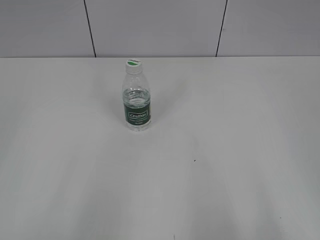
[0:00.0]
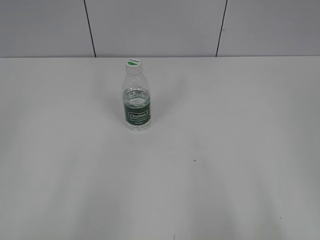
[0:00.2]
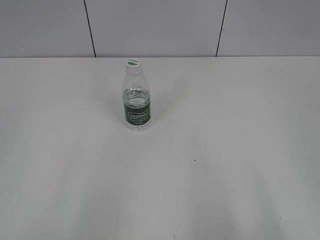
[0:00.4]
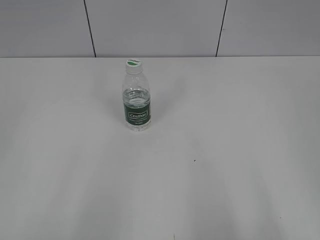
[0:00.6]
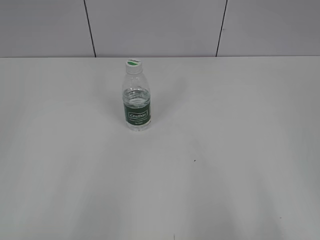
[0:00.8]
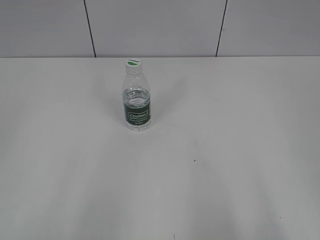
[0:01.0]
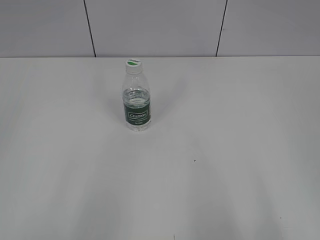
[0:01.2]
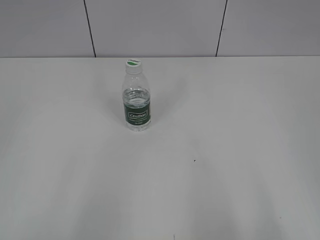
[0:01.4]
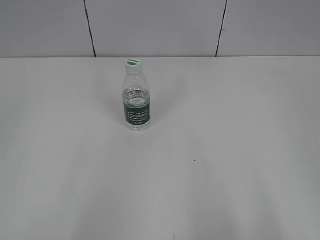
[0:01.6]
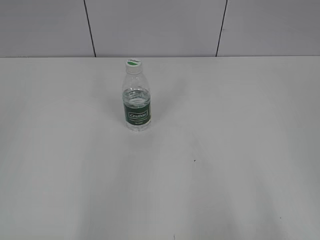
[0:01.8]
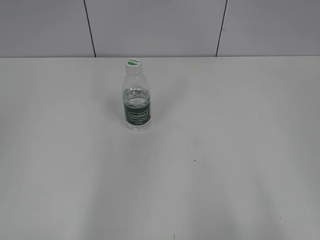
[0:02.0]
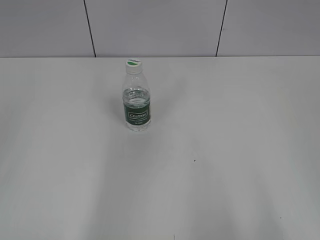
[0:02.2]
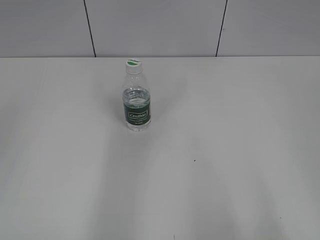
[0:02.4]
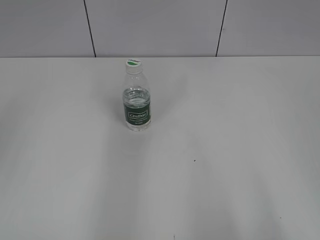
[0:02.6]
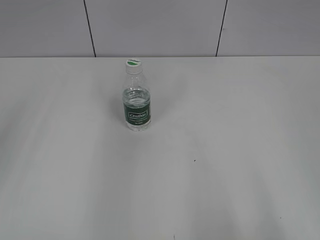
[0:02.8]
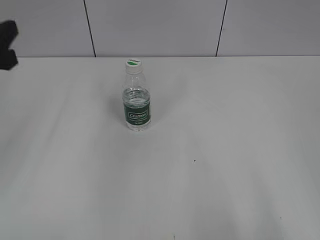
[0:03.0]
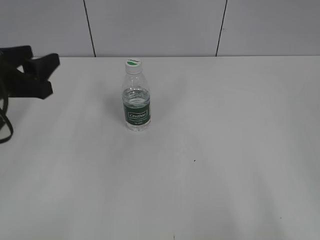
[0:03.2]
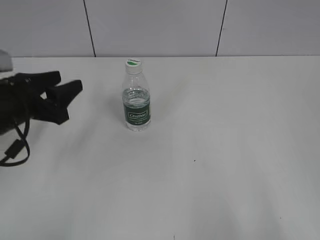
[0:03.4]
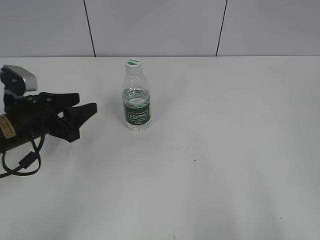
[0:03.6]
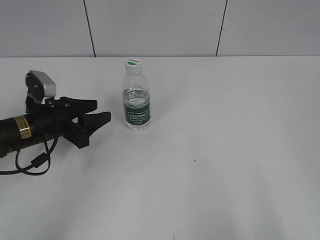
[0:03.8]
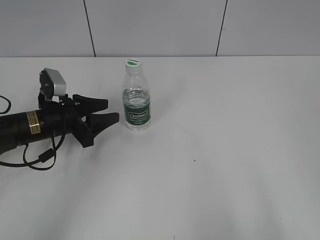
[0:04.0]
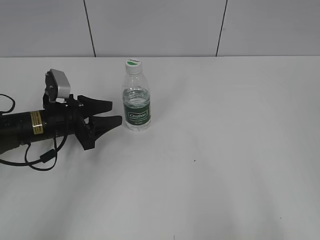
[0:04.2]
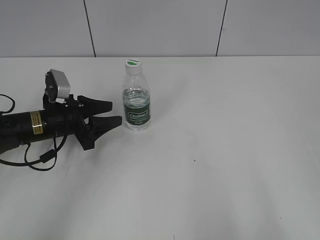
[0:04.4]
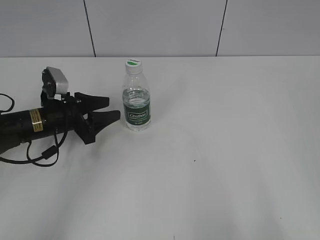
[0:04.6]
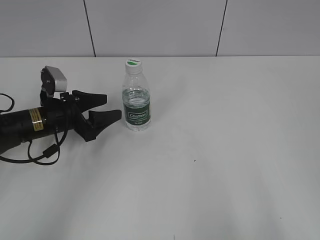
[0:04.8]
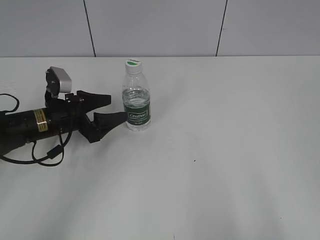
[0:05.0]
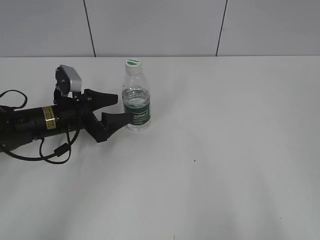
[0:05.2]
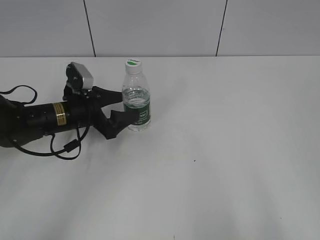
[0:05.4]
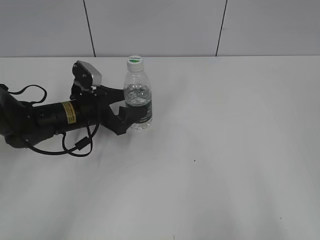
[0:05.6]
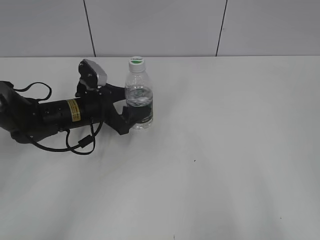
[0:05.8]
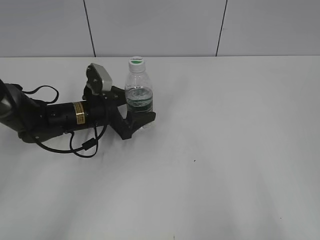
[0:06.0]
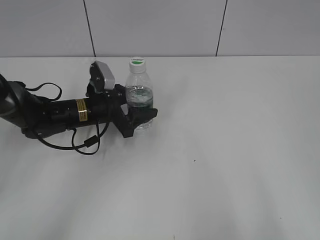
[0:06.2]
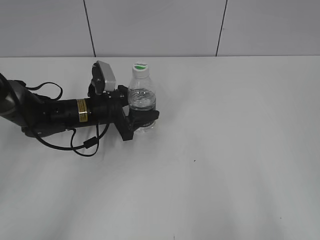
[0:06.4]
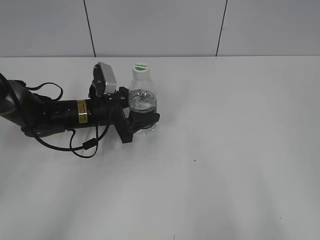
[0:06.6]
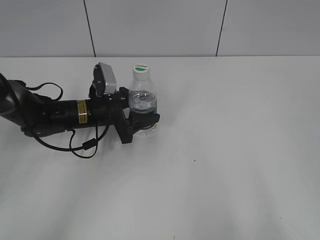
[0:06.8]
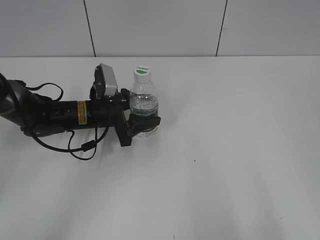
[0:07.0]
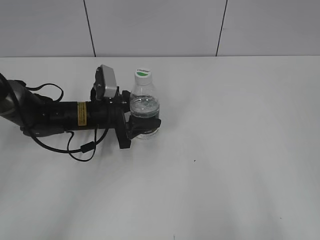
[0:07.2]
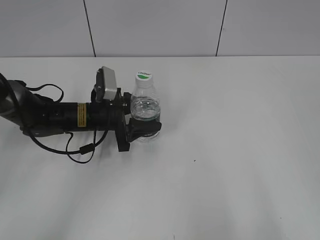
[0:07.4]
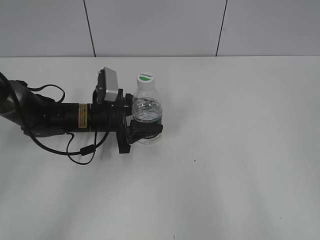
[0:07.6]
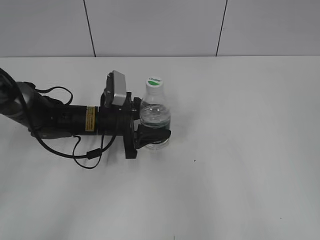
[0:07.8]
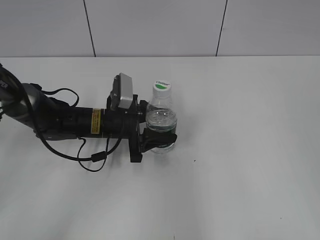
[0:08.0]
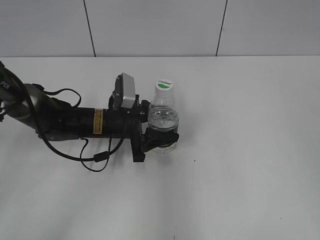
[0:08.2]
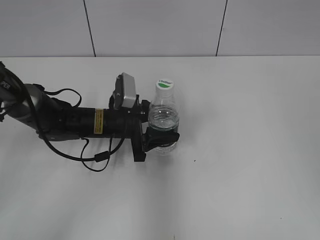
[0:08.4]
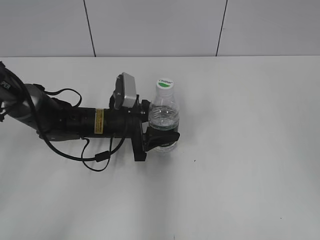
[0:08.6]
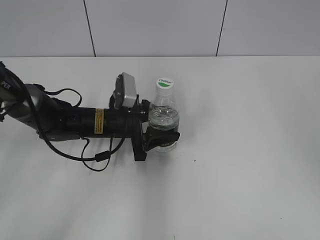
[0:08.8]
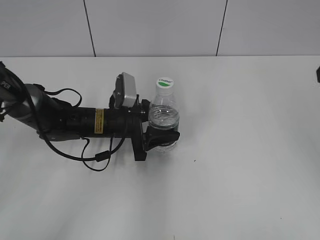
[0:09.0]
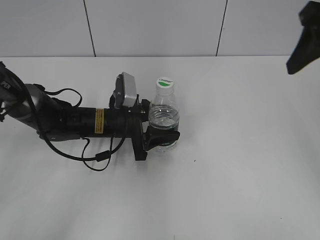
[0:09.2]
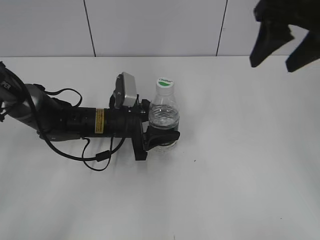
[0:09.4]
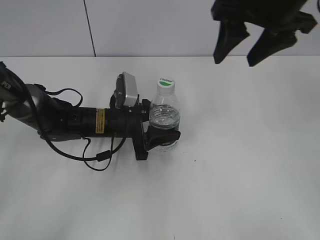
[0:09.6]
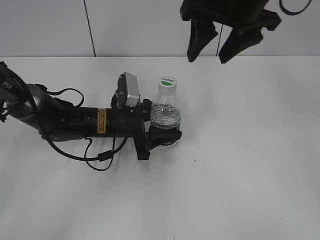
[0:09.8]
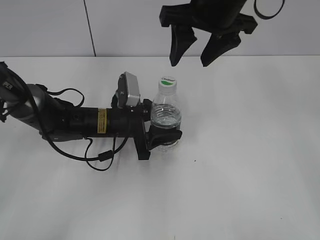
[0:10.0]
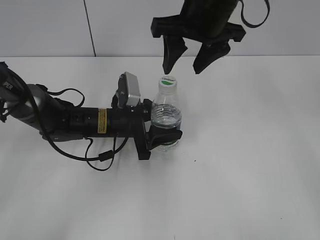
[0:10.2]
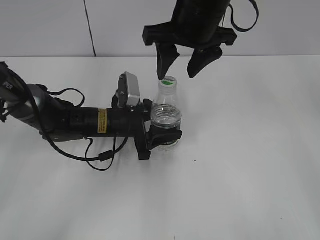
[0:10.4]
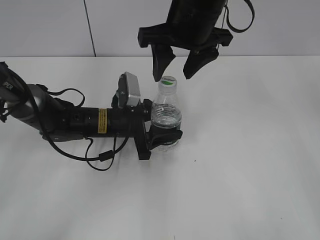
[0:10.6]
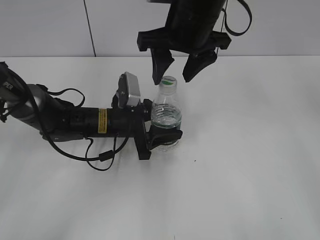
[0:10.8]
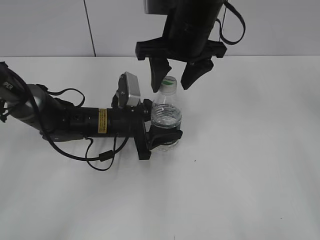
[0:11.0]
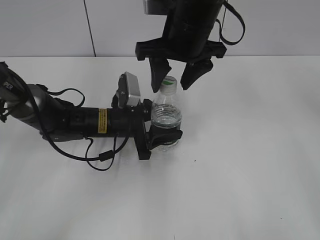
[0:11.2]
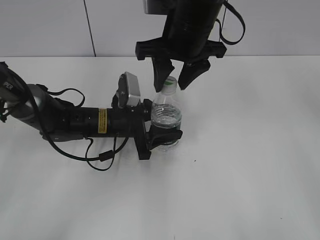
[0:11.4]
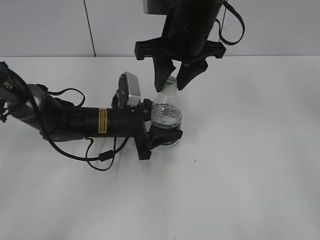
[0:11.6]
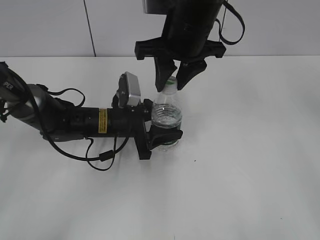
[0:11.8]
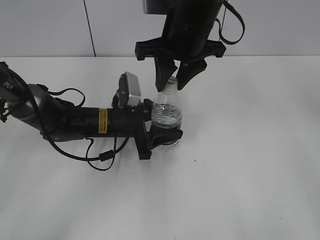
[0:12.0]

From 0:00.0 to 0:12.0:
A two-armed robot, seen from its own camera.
Step, from 0:00.0 to 0:06.2: Grasp the bottle and move it to the center of the table with the left gripper.
Step, from 0:06.4 to 0:08.0: Lift the bottle and move it to the center of the table with the left gripper.
From 0:01.6 to 0:03.0: The left gripper moves forward, about 25 cm.
From 0:03.0 to 0:04.4: The left gripper heads downward and forward, covering about 20 cm.
From 0:04.4 to 0:06.0: The left gripper shifts approximately 5 cm to the right, and opens.
From 0:06.0 to 0:07.6: The left gripper closes.
From 0:07.6 to 0:09.0: The right gripper moves forward, roughly 25 cm.
From 0:09.0 to 0:10.4: The right gripper moves to the left and forward, approximately 25 cm.
From 0:10.4 to 0:12.0: The right gripper closes.

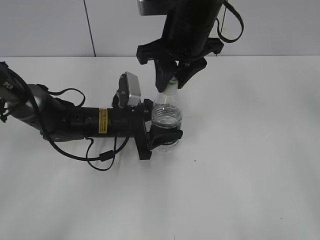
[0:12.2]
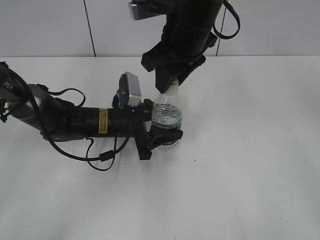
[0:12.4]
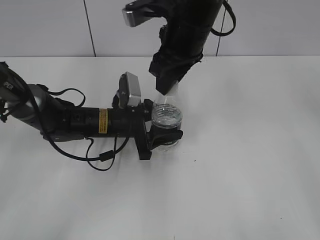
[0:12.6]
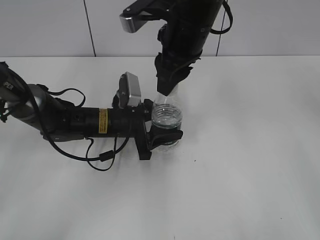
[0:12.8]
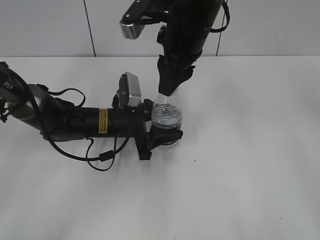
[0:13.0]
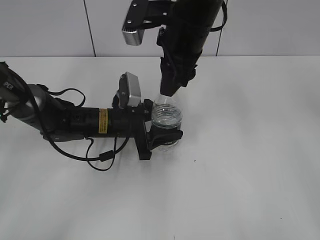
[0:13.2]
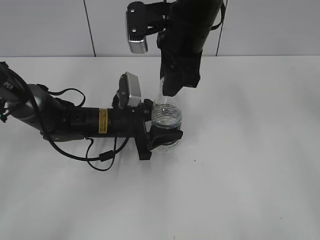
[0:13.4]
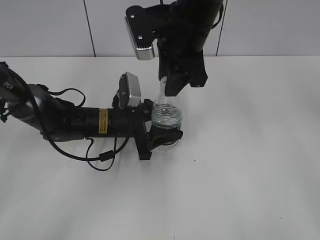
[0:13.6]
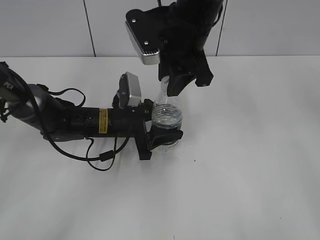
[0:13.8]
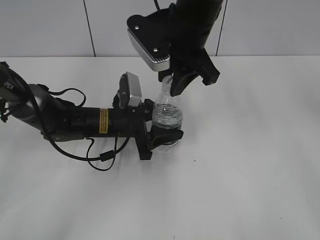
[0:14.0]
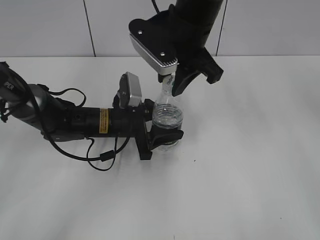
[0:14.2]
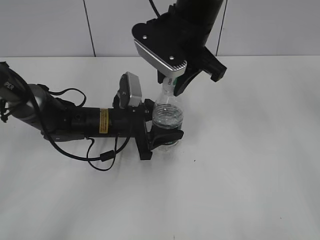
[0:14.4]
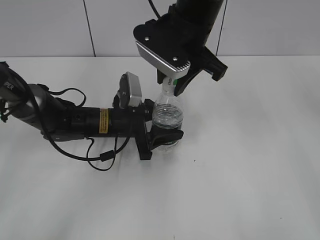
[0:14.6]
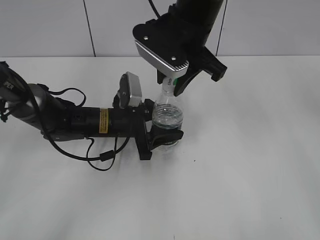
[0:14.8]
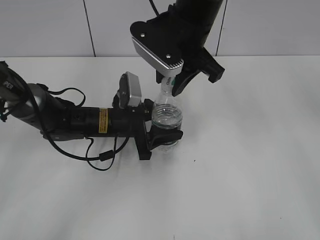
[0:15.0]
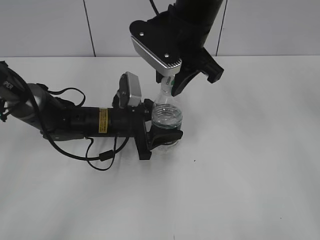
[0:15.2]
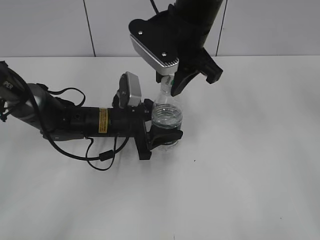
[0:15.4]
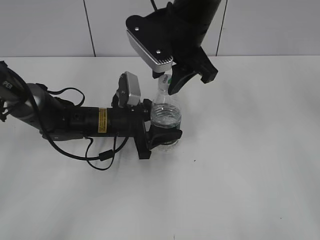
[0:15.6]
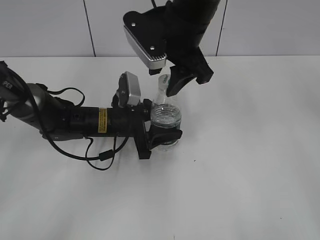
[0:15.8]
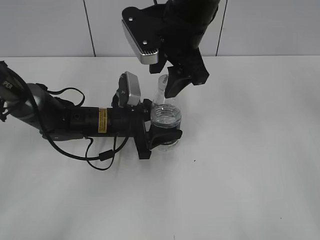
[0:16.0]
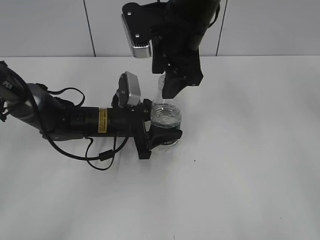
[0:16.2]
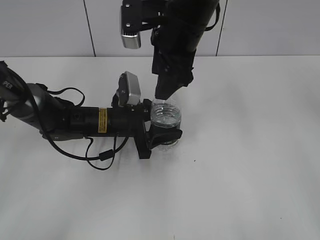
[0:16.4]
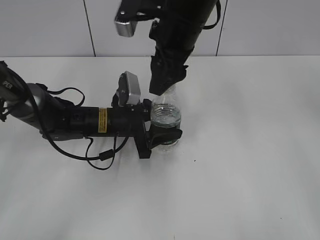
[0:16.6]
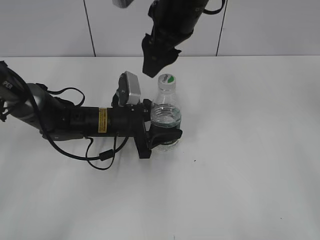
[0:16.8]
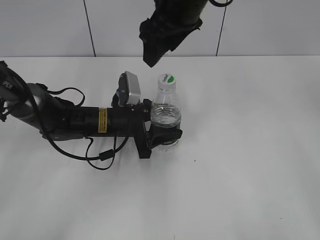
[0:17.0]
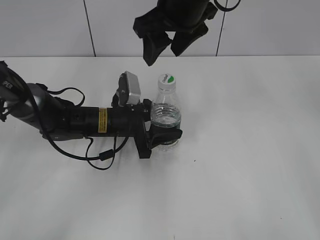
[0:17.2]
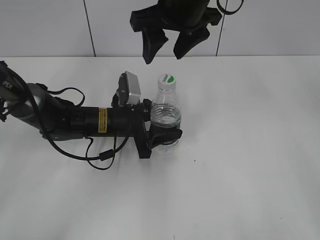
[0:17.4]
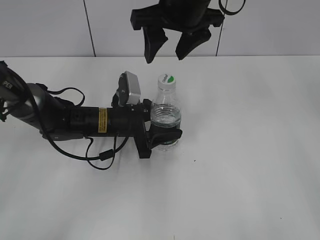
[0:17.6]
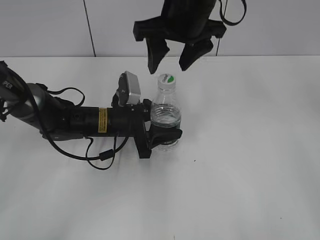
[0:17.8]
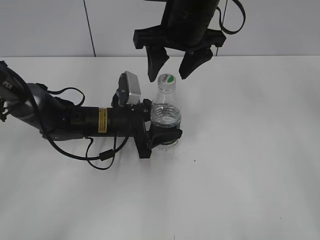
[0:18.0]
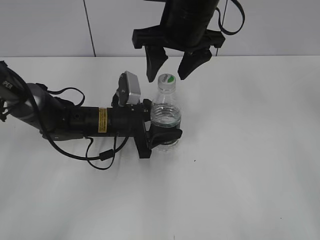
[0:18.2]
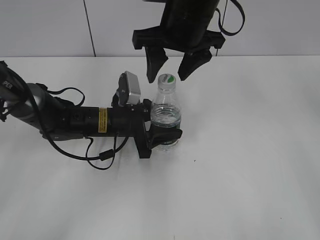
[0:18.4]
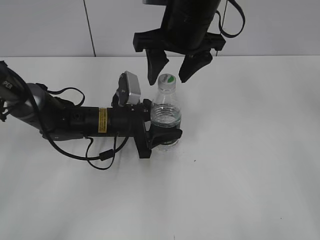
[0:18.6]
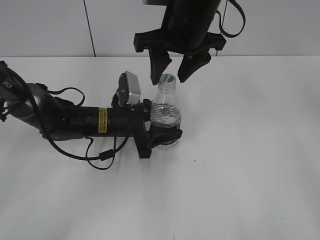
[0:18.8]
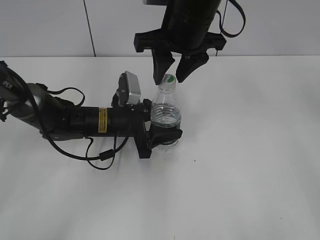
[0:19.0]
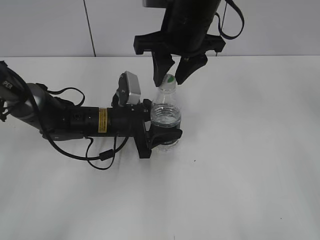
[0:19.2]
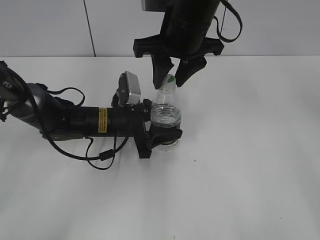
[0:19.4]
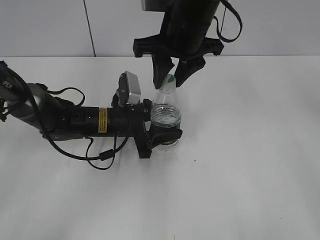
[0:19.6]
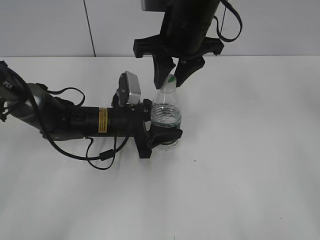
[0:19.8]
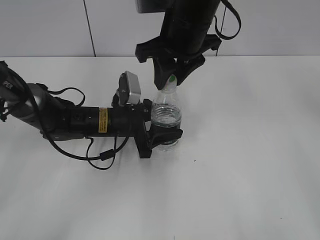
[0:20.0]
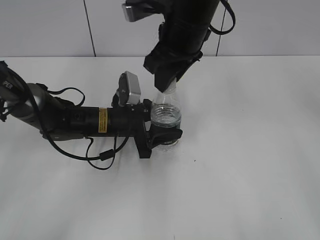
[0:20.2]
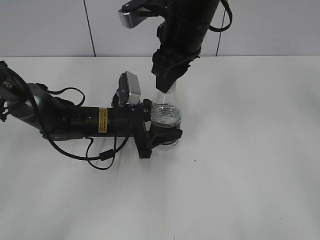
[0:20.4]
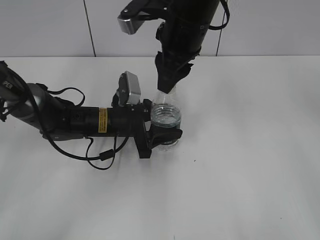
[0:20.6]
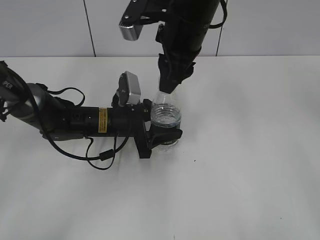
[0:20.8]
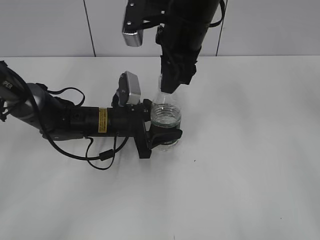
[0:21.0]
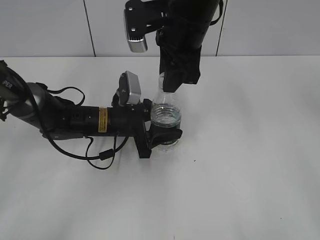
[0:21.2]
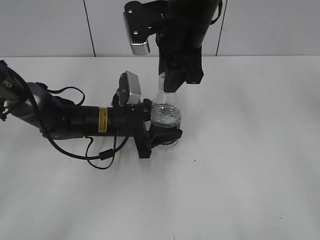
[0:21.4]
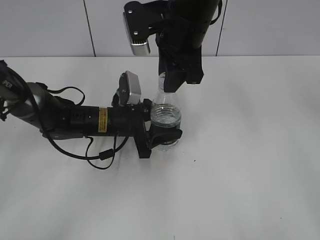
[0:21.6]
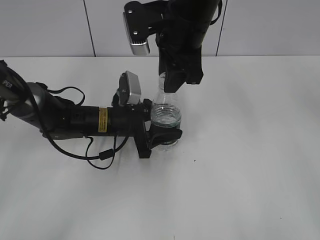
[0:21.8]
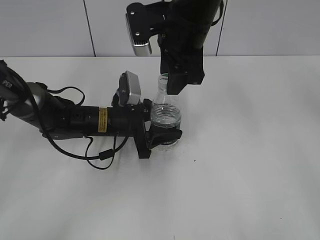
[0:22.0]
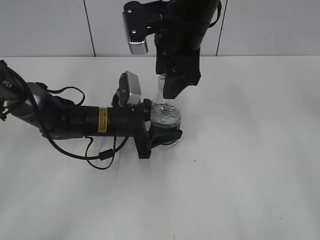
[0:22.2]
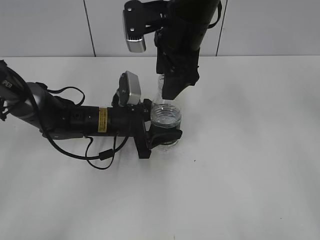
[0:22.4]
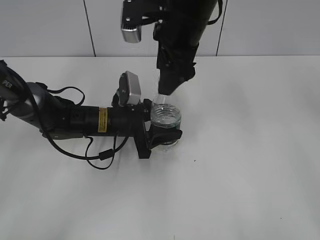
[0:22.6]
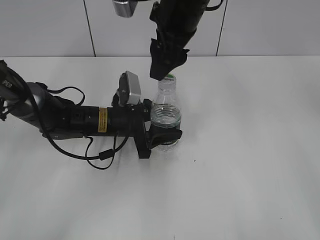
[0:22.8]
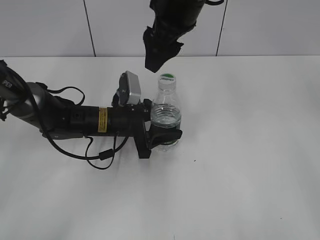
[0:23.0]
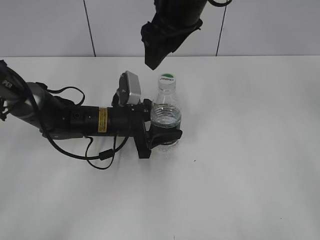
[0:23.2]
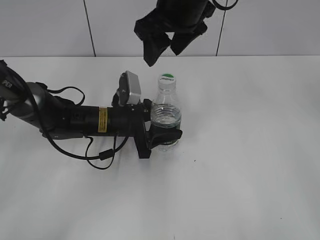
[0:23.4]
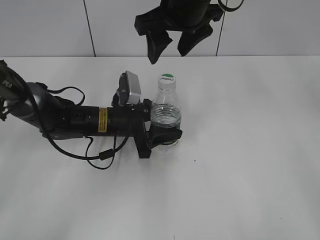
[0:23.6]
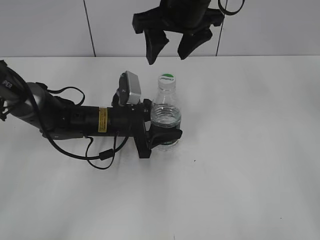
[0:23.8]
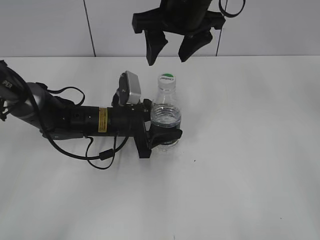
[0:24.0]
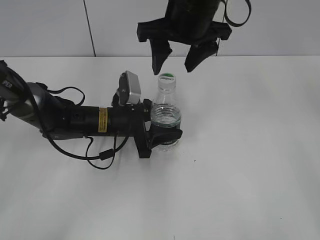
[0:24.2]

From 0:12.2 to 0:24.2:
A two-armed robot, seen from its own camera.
From 0:15.2 to 0:16.6: The right gripper opens.
From 0:18.2 to 0:19.8: The right gripper closes up.
From 0:21.2 to 0:22.6: The right gripper opens.
